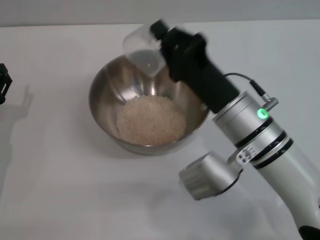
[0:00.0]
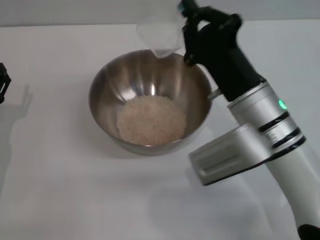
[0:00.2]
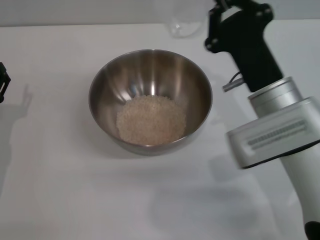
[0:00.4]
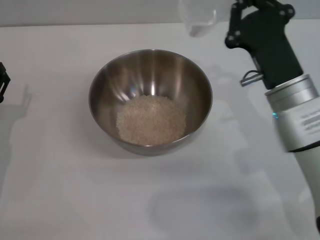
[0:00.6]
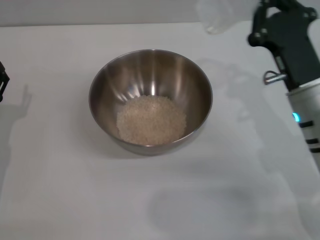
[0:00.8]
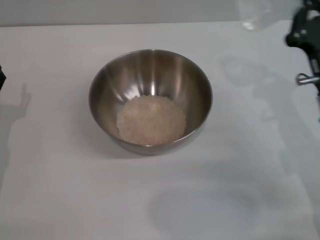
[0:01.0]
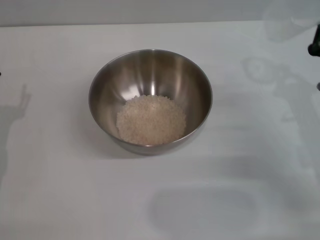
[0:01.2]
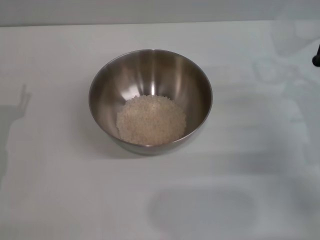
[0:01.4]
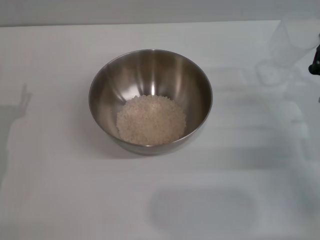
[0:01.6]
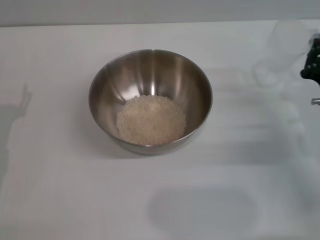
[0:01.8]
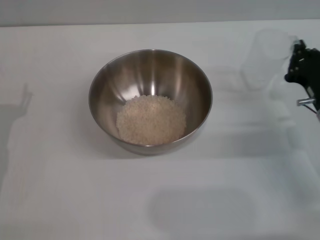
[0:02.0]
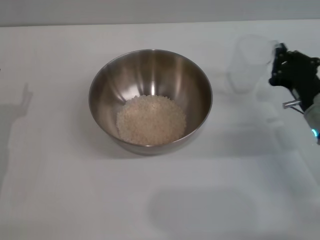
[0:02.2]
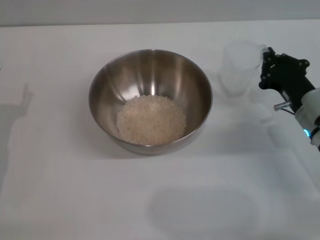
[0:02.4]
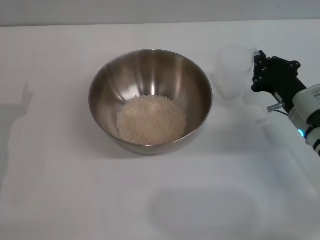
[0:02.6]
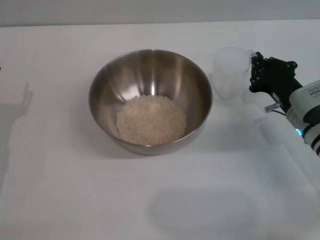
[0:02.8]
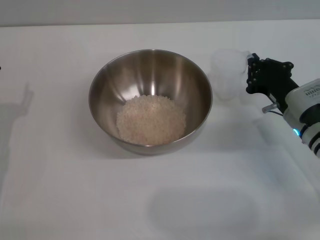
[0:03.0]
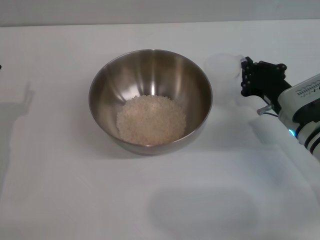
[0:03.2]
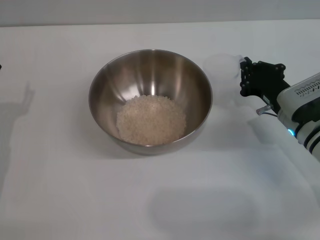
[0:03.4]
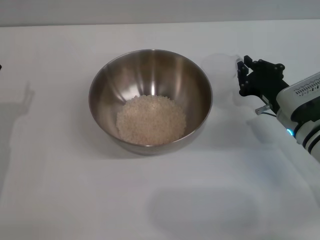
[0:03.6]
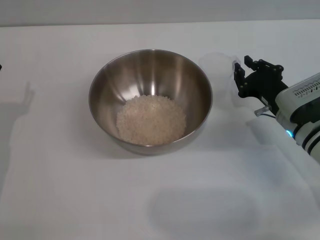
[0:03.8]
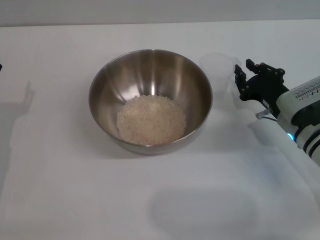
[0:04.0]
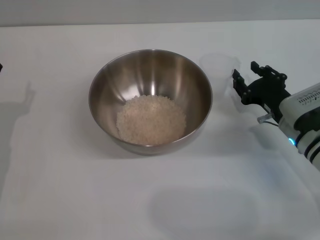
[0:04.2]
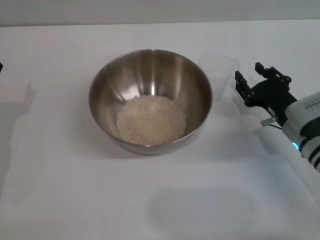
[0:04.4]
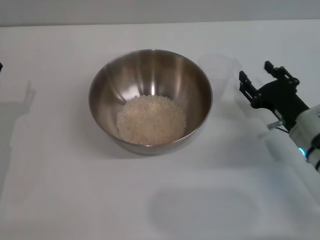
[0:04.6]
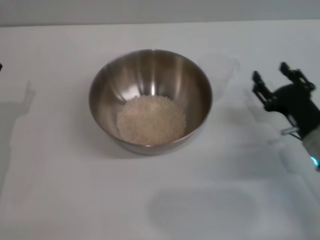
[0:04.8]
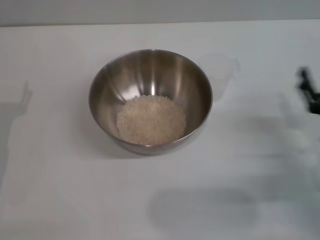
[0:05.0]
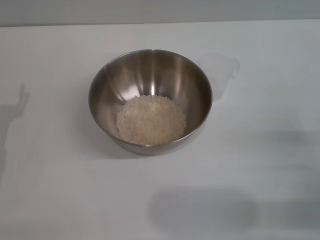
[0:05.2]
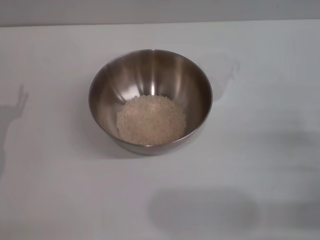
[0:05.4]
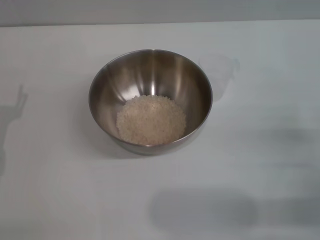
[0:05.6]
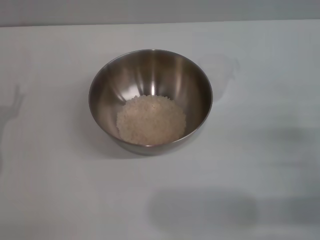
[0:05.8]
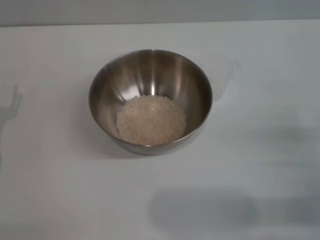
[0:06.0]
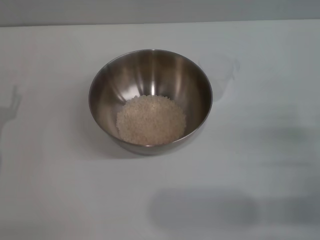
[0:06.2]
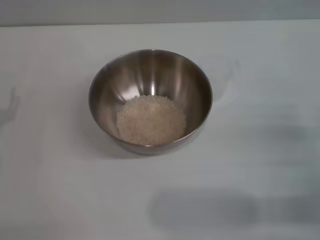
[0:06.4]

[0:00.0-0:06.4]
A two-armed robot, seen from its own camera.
Task of the whole recording: Place the bowl in the middle of the table with one hand and pour the rice from the grain cup into it with the other hand.
Step, 0:00.0 to 0:04.4: Place the cup on the table with the right gripper.
0:00.0 to 0:01.6: The right gripper travels to the right by some 15 cm.
0:01.6 to 0:03.2: The right gripper goes roughly 5 cm to the left.
0:03.2 to 0:04.8: The right gripper travels backward by roughly 5 cm, and opens up.
0:04.8 to 0:06.4: The right gripper goes about 10 cm backward and to the right.

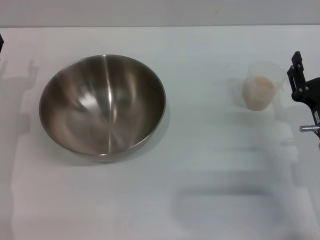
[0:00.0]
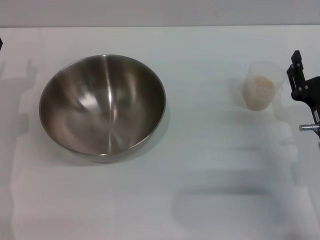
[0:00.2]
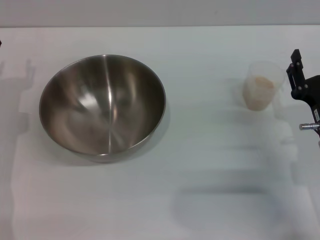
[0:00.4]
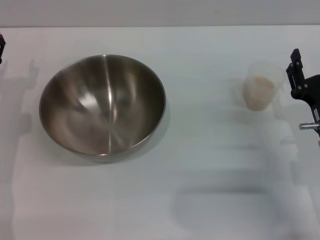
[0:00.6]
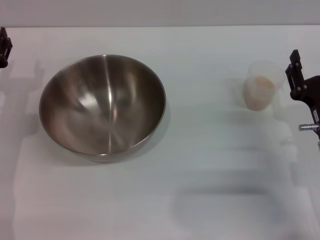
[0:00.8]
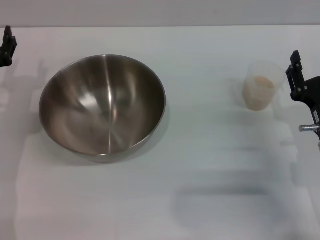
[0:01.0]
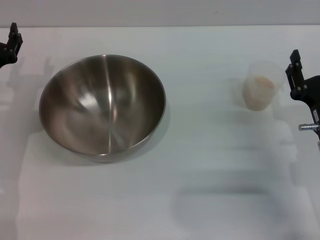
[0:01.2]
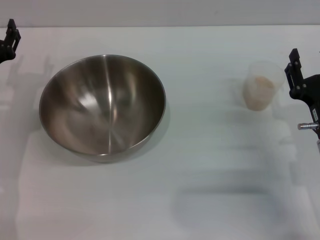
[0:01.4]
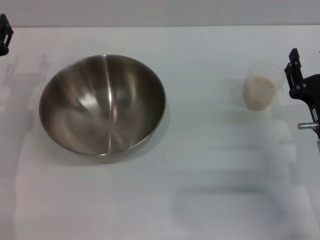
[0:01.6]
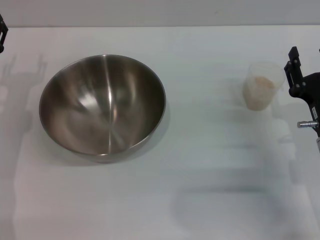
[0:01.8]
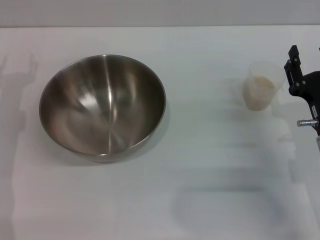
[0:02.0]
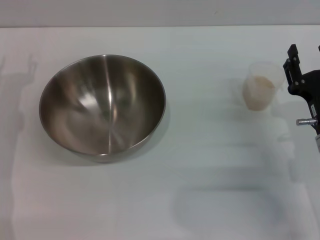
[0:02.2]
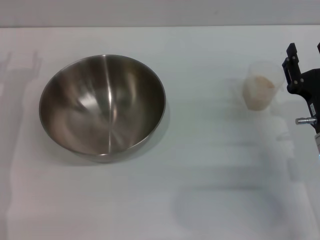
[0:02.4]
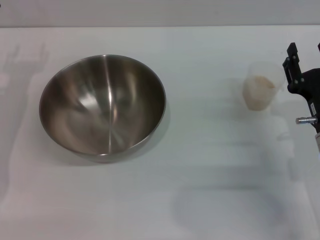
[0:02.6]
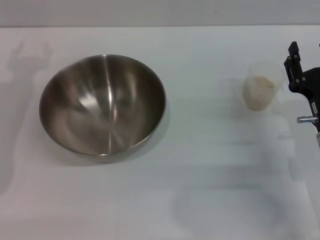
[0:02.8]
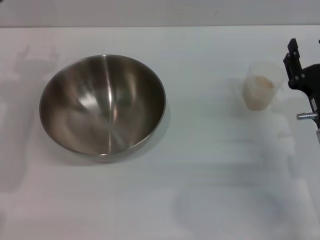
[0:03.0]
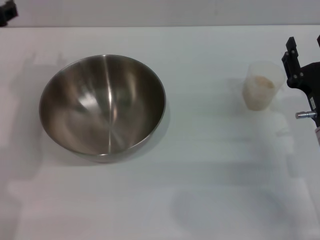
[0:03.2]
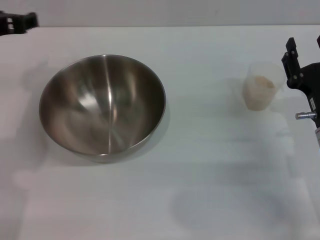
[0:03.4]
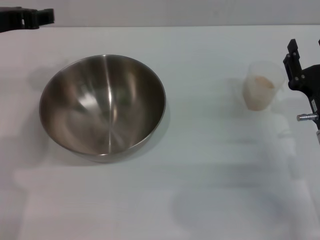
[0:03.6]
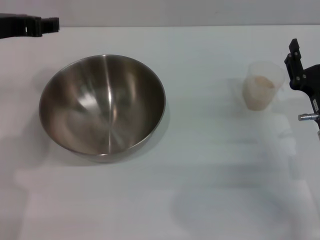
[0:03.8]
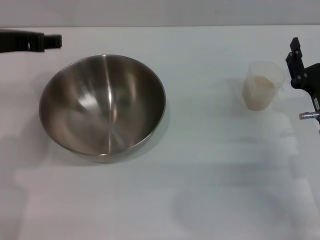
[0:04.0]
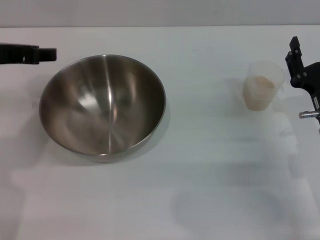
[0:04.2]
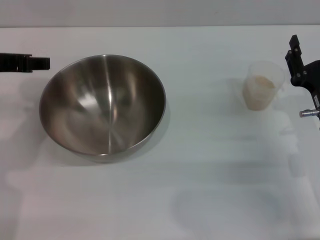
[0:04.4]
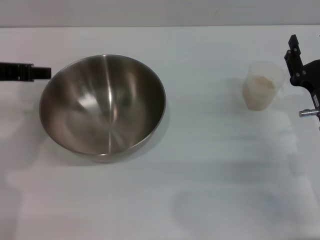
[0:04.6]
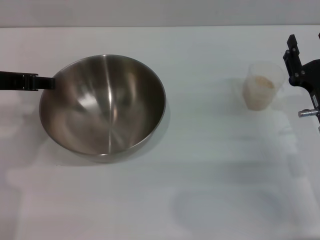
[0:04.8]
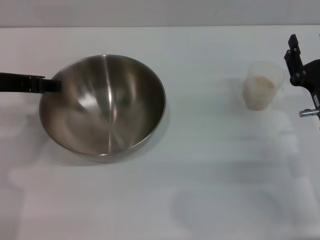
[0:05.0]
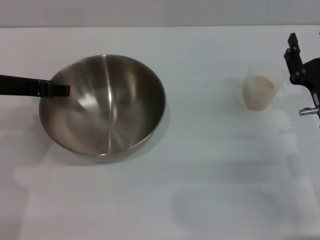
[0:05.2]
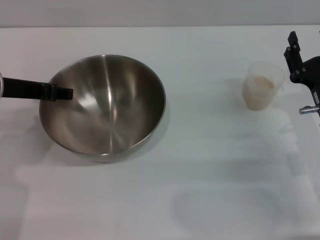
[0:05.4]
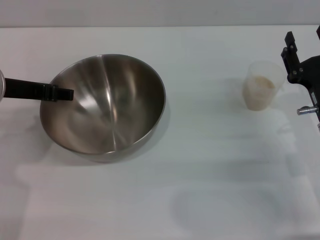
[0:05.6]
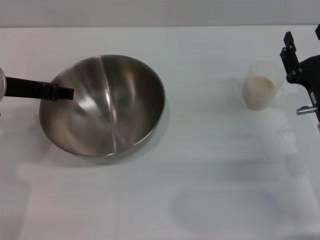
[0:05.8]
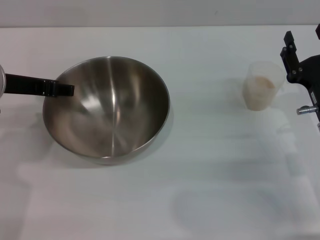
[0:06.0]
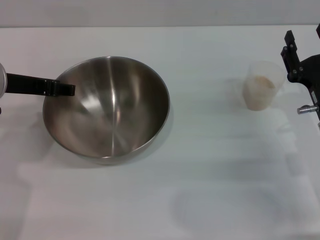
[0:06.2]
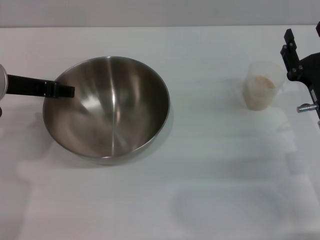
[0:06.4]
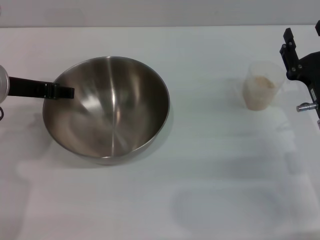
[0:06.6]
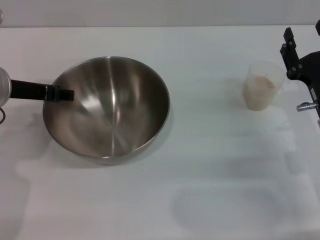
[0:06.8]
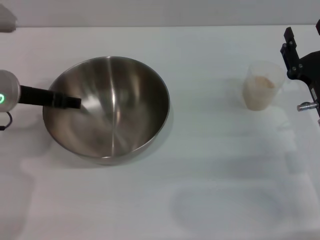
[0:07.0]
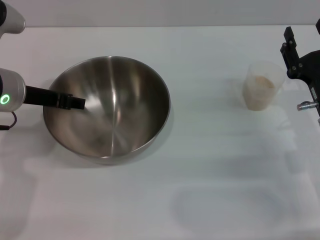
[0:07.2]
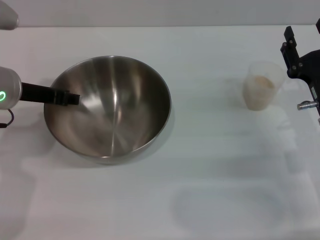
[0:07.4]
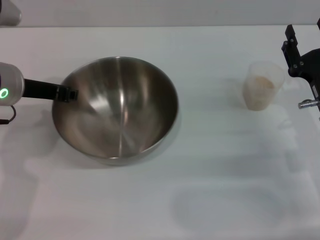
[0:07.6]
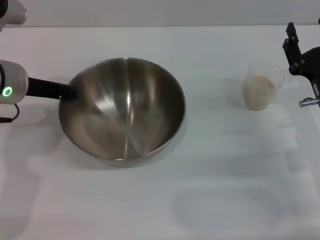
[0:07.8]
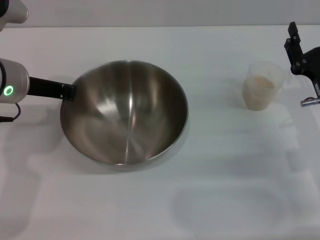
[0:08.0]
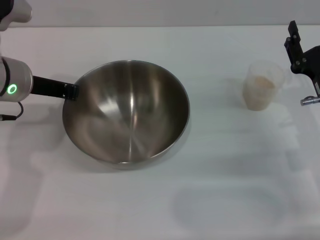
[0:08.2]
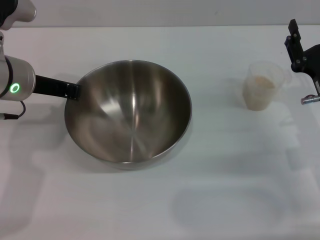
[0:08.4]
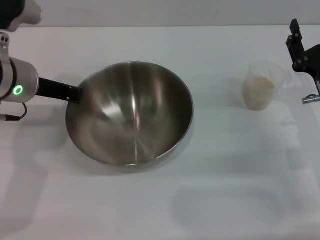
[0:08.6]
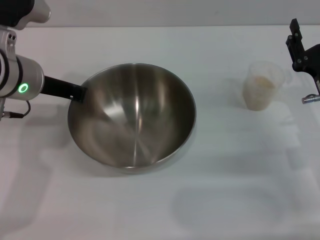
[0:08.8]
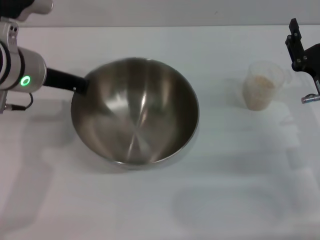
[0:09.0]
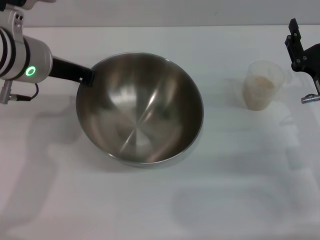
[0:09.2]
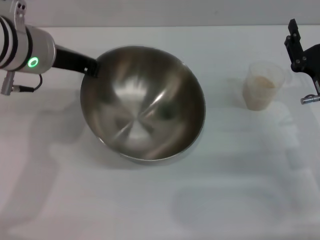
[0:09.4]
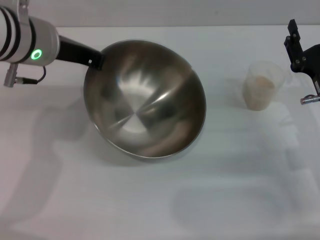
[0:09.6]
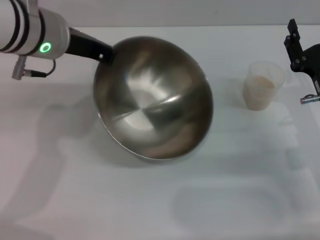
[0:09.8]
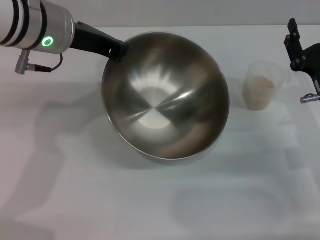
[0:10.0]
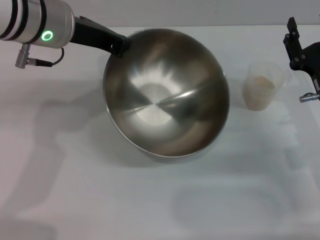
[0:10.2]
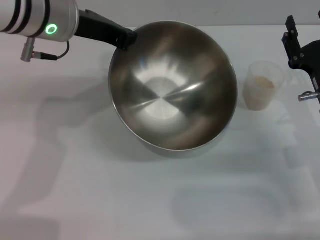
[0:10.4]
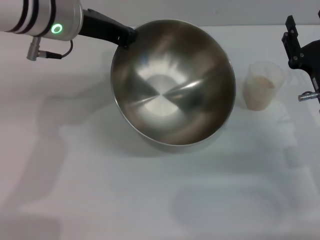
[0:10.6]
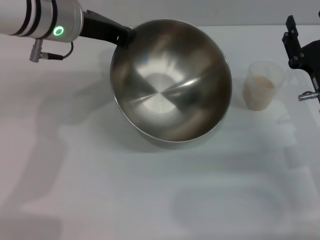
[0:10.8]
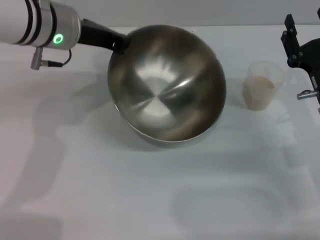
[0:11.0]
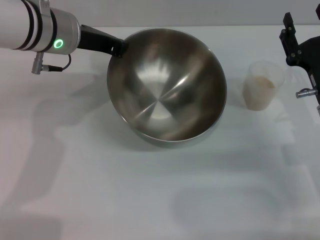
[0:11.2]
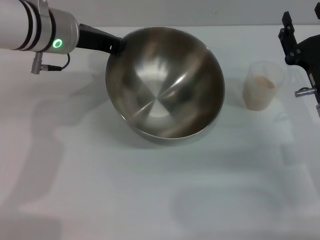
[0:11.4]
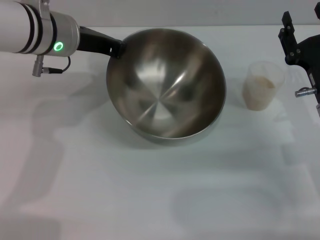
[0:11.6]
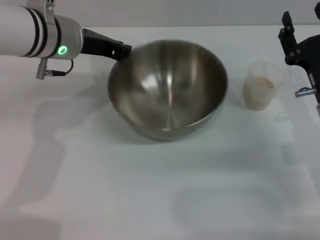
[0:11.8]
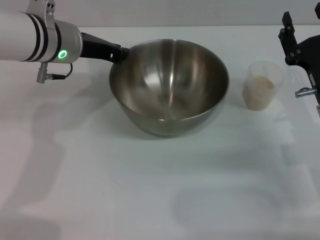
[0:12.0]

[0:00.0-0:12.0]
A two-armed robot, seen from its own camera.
Task of the whole recording: Place the bowl in the middle of the table with one hand and pour the rice from the grain cup into it with the other hand.
Step, 0:00.0 to 0:09.2: Pick up the bowl with the left gripper.
0:00.0 to 0:01.6: There are only small adjustments of the grippers.
0:04.4 to 0:06.0: The grippers move only a little.
0:06.0 to 0:07.6: The grippers move only a little.
0:07.6 to 0:09.0: The left gripper closes up.
0:09.0 to 0:10.4: The left gripper is displaced upward by roughly 5 cm.
0:10.4 to 0:12.0: The left gripper goes roughly 5 cm downward.

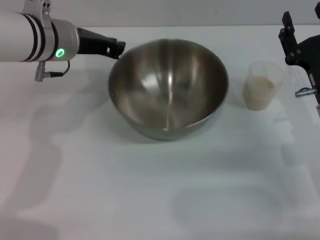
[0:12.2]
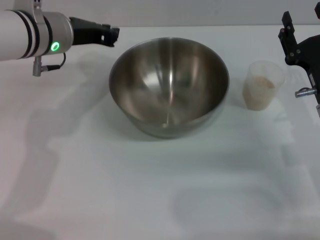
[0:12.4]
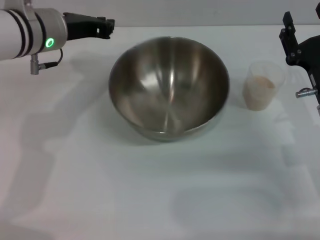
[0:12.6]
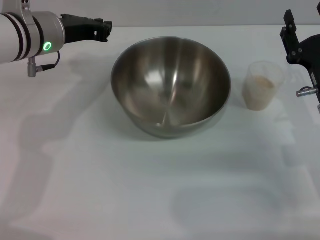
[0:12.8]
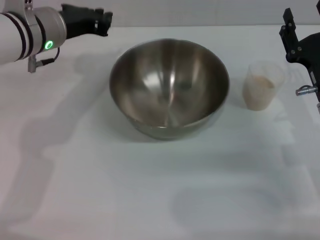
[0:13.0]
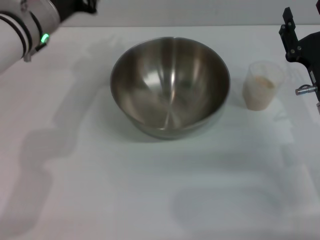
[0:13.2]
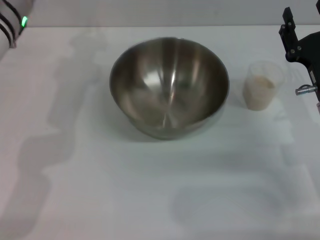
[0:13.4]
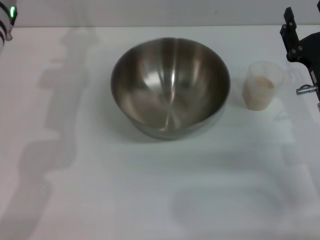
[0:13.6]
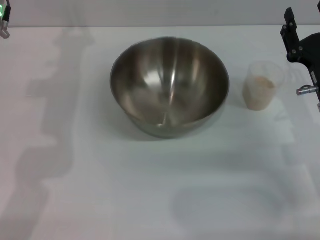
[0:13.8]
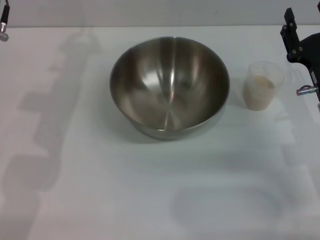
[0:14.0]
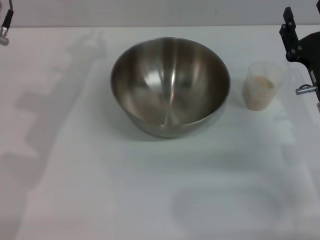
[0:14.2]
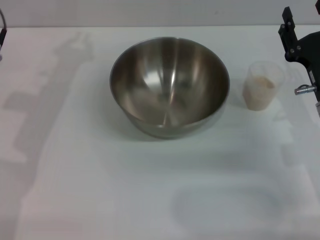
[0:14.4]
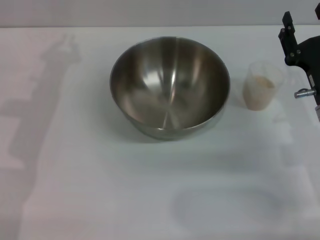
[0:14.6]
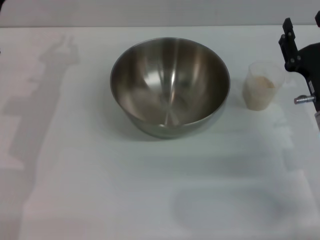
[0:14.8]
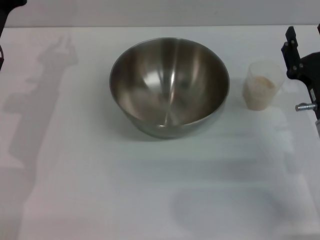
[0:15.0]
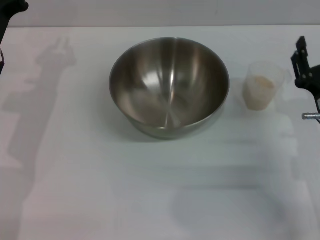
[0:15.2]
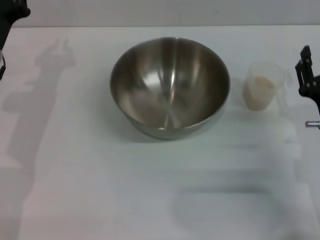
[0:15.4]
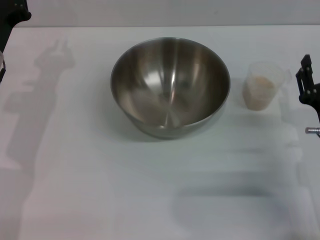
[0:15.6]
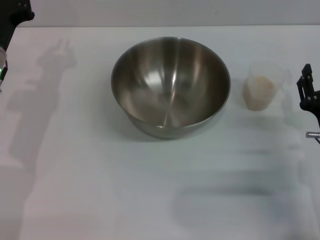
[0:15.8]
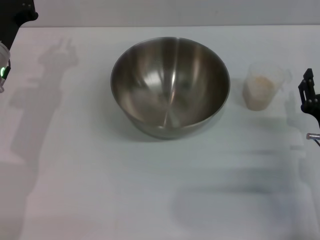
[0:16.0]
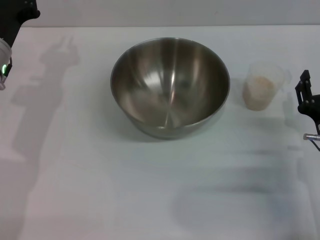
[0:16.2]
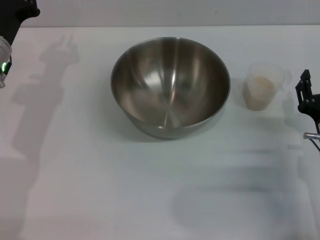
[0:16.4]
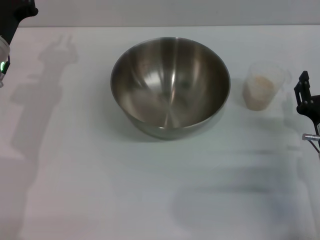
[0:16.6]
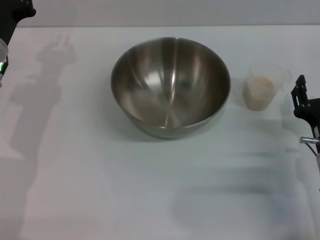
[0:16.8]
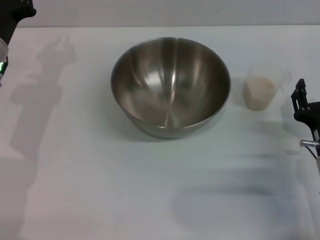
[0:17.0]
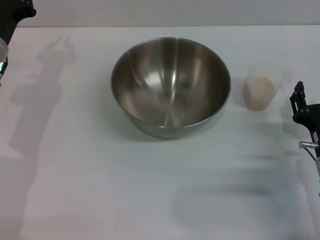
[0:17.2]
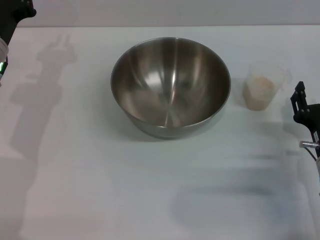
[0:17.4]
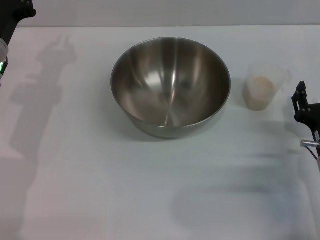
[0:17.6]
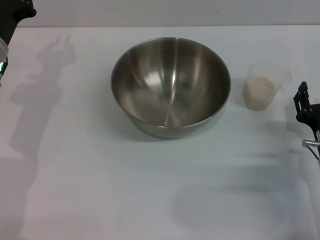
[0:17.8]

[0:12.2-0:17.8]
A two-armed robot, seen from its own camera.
Task of the whole recording: Place the bowl in the middle of the table with one hand and pour the rice from the grain cup into it with the other hand.
0:13.6 to 0:15.0: The left gripper travels downward by some 5 cm.
0:16.4 to 0:17.8: Neither gripper changes place.
